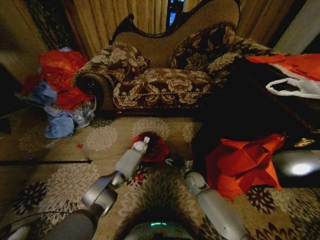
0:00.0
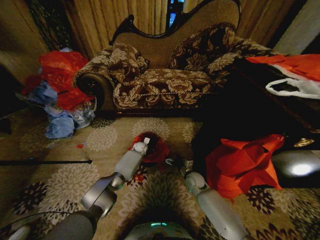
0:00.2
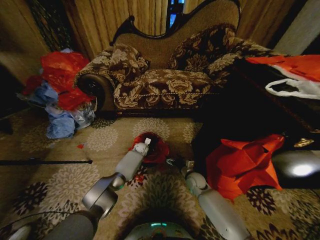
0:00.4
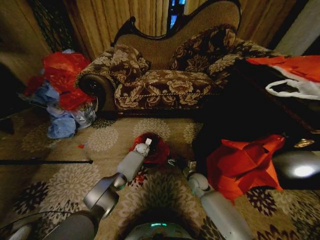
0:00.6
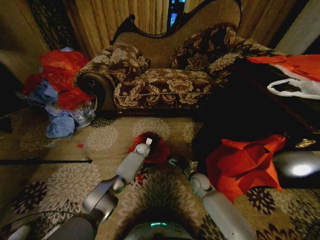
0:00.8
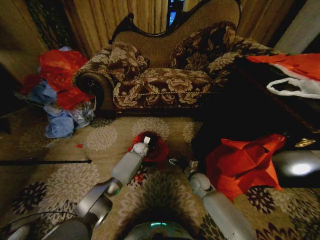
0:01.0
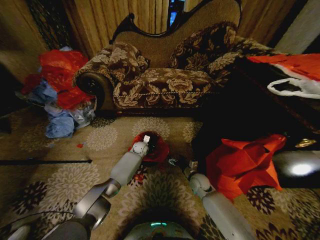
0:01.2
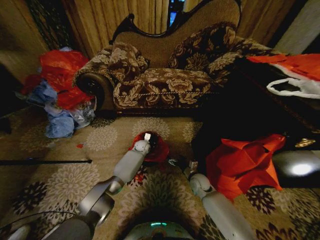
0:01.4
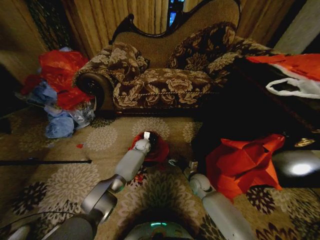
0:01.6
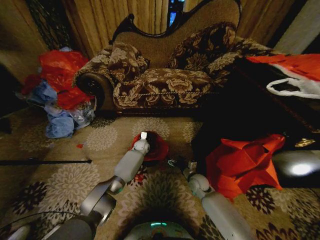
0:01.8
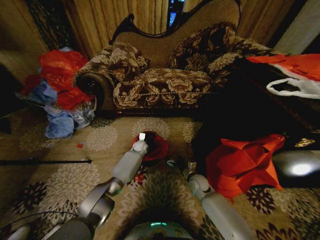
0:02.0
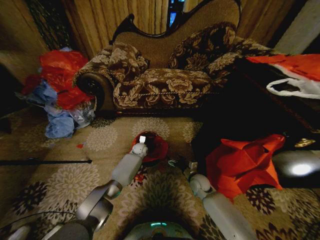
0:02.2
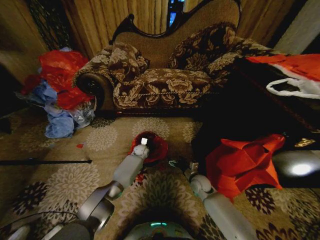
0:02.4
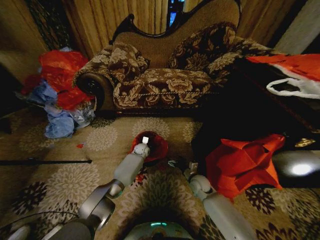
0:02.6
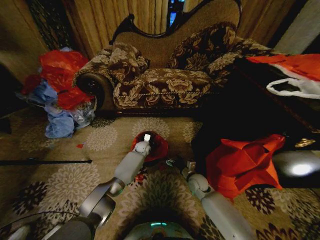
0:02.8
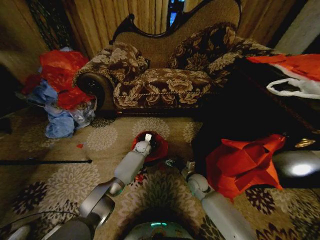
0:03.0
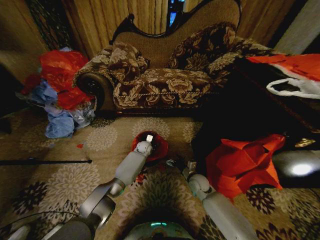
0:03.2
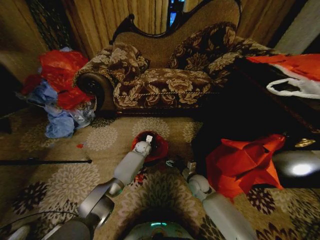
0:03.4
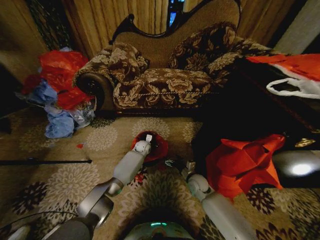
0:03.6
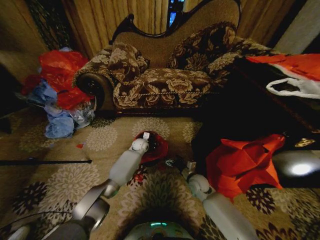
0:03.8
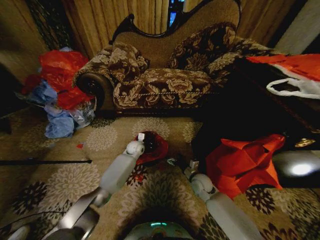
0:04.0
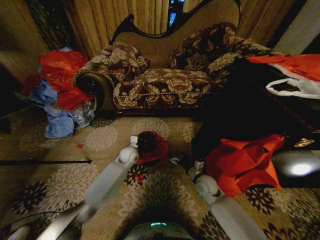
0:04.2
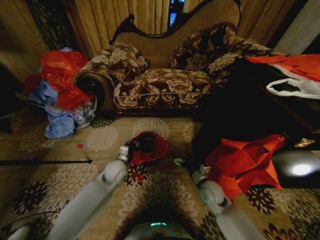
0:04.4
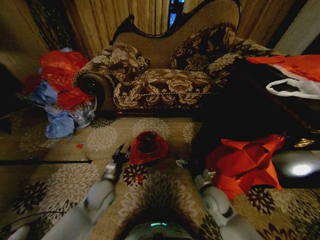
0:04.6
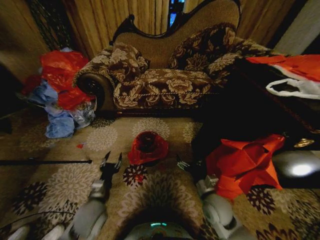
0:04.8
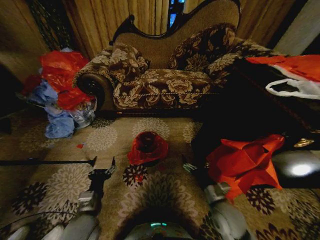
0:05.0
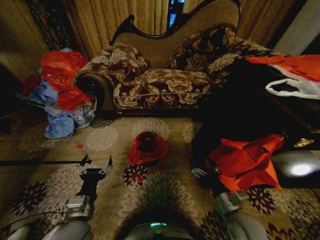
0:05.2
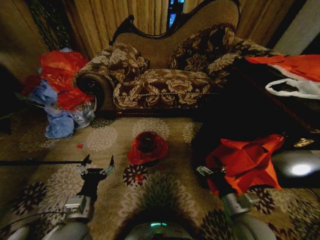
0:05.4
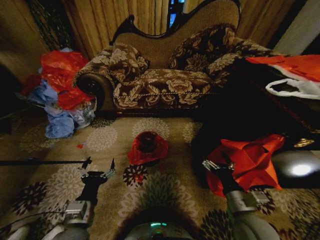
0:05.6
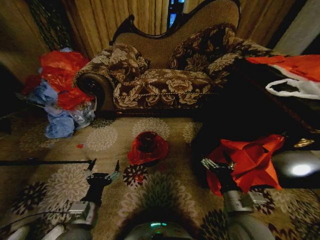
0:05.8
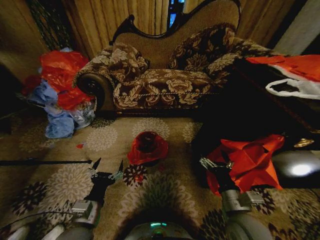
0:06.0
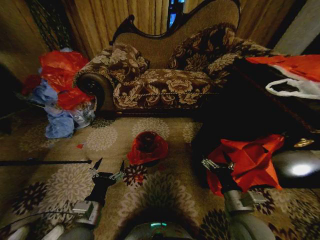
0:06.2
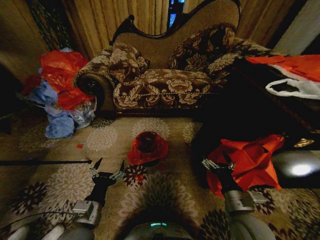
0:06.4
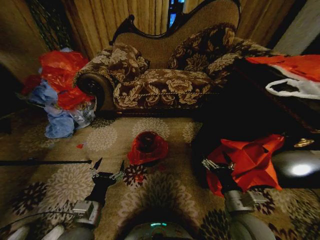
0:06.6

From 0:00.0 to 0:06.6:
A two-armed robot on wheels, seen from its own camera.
Task of the whole recording: Place a garbage bag over the trash bin.
From 0:01.6 to 0:03.2: There are only small adjustments of the grippers.
From 0:03.2 to 0:05.0: The right gripper goes about 20 cm backward and upward. The left gripper is displaced backward by roughly 40 cm, and opens up.
From 0:05.0 to 0:06.6: The right gripper is displaced upward by approximately 5 cm.
